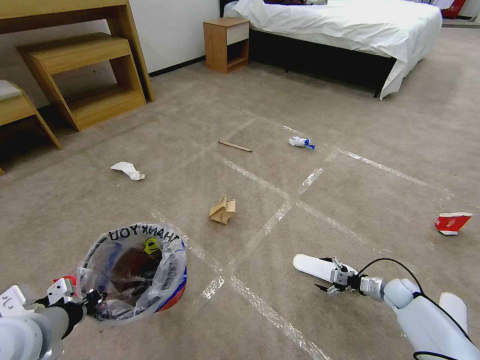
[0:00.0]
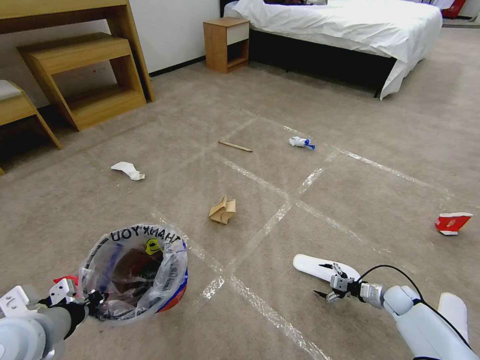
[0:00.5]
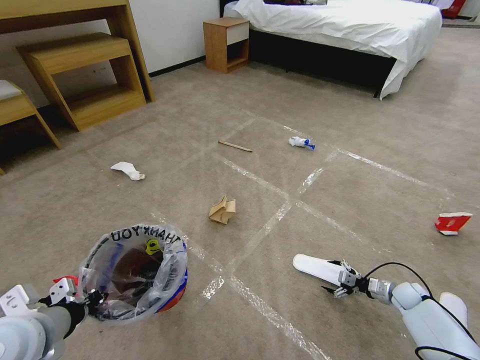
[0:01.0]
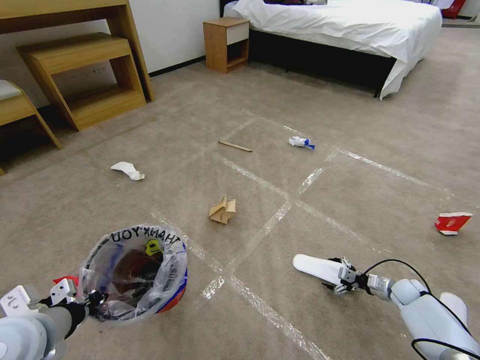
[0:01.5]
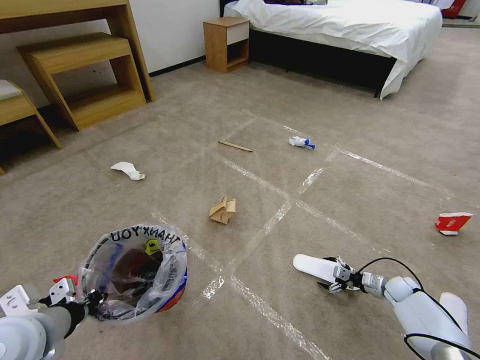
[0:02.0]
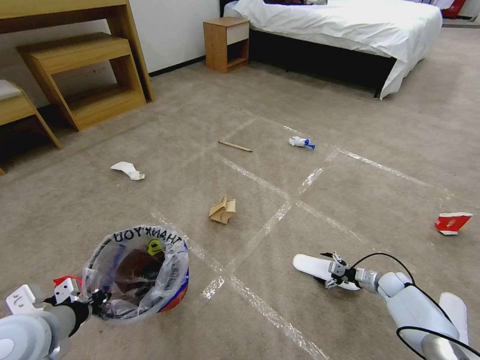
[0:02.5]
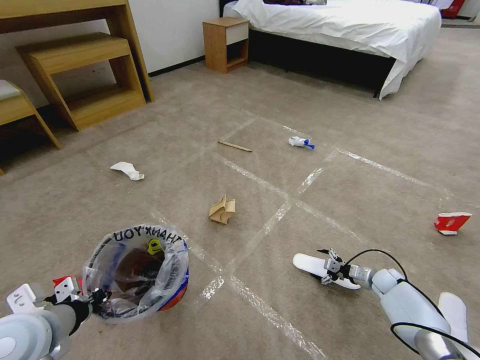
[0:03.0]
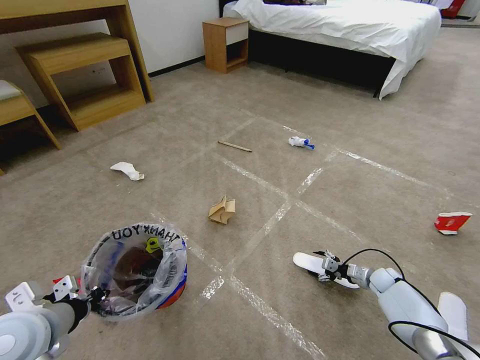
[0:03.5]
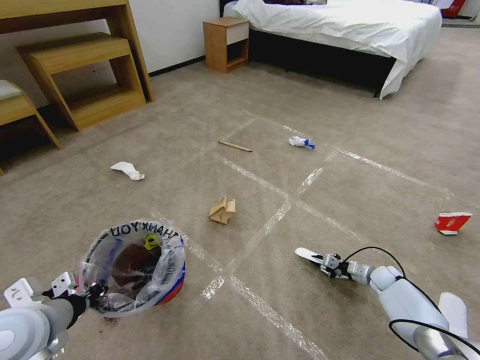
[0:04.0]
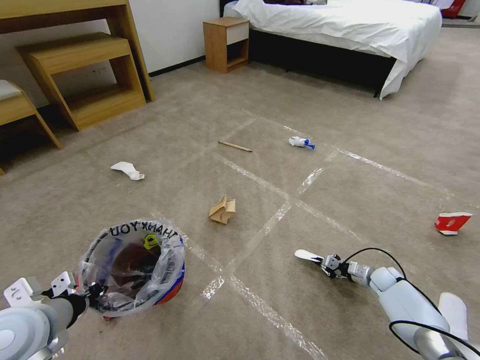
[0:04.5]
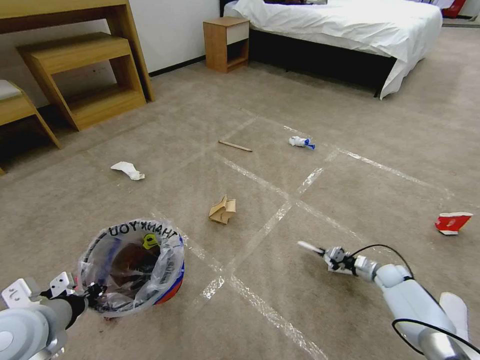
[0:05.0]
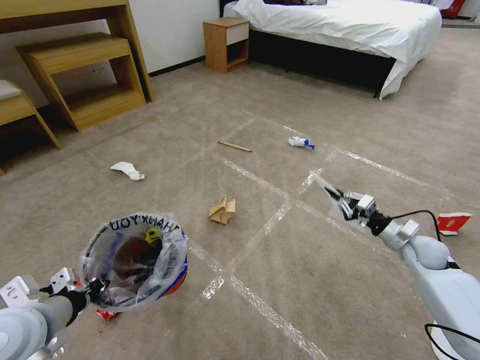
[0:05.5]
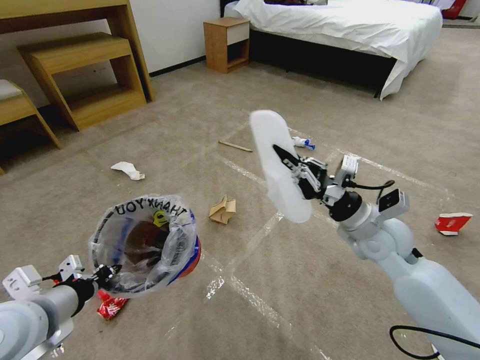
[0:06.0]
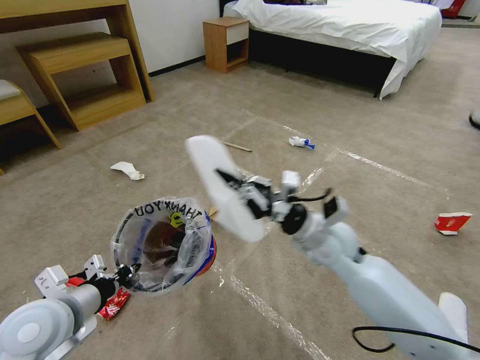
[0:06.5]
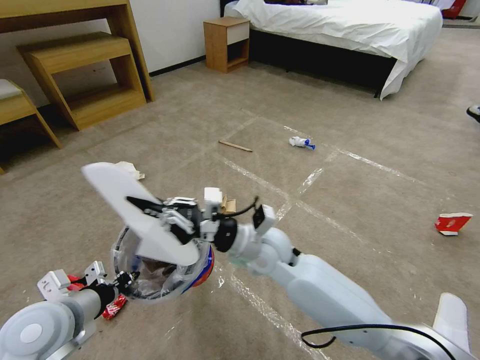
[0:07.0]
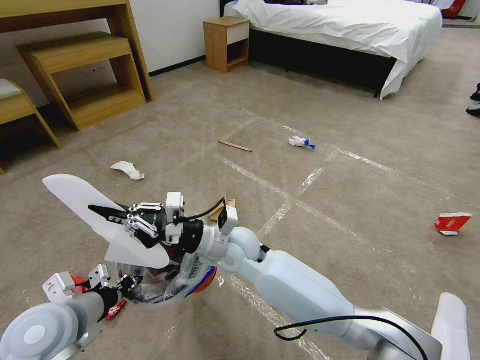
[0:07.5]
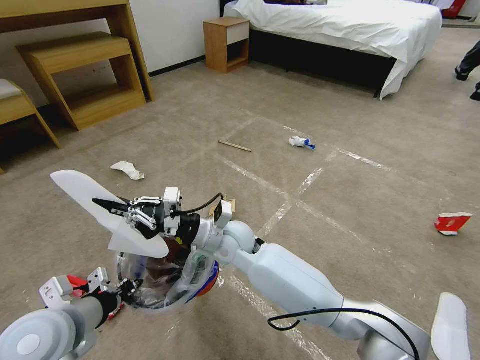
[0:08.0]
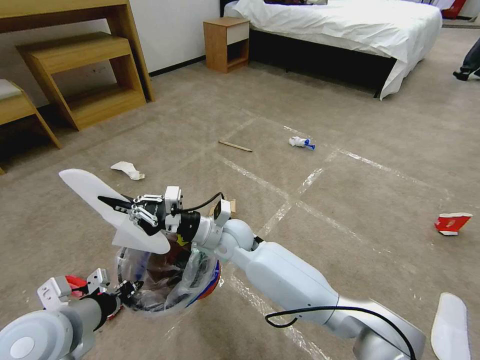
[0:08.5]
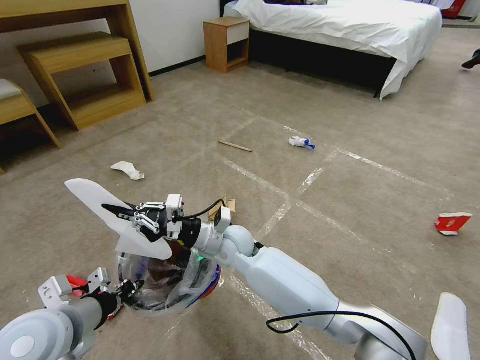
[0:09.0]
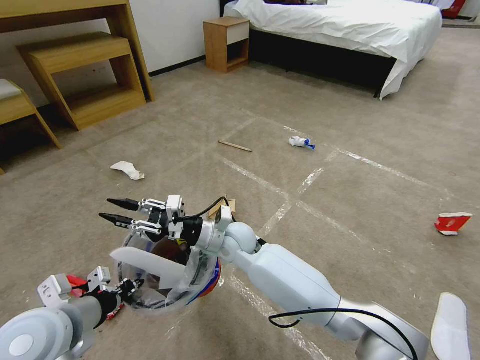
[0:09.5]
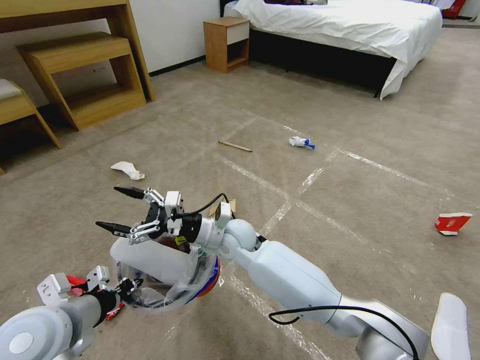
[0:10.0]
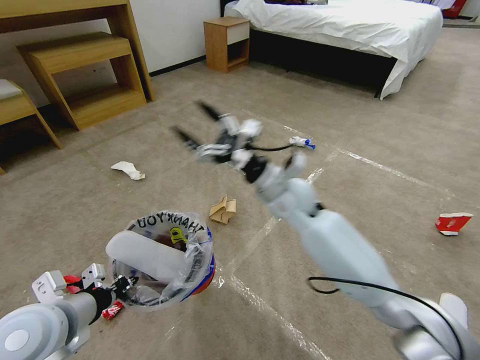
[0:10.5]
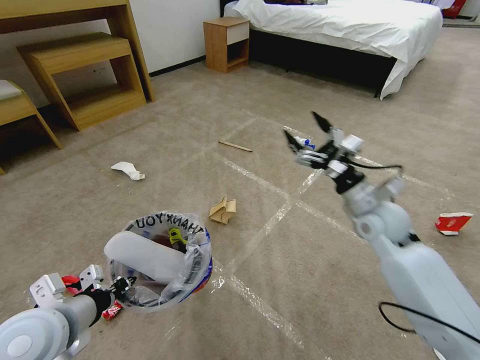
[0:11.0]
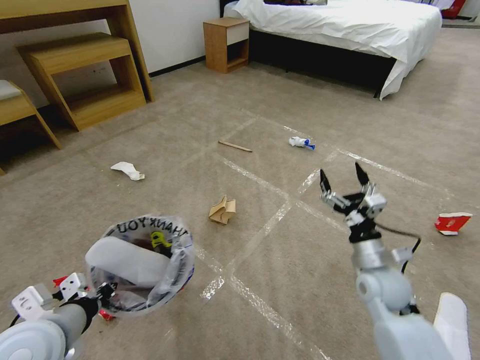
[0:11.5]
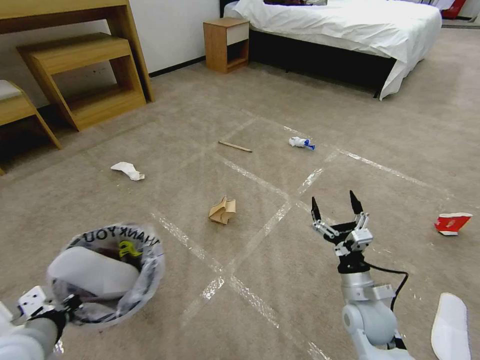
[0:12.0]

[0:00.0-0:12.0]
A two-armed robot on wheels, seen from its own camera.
Task of the whole recording: Pick up the trash bin and place the garbage on the floor into it.
0:00.0 to 0:02.0: The grippers stay close to where they were, moving slightly.
0:02.0 to 0:04.0: The right gripper closes.
0:04.0 to 0:06.0: The right gripper is displaced upward and to the left by roughly 35 cm.
0:06.0 to 0:08.0: The right gripper heads to the left, covering about 30 cm.
0:08.0 to 0:10.0: The right gripper opens up.
0:10.0 to 0:12.0: The right gripper shifts approximately 35 cm to the right and backward.

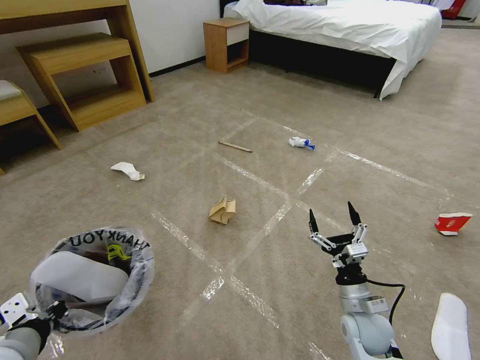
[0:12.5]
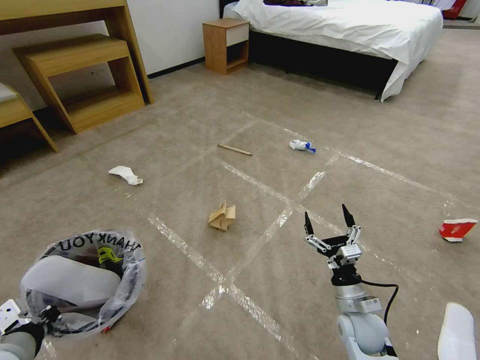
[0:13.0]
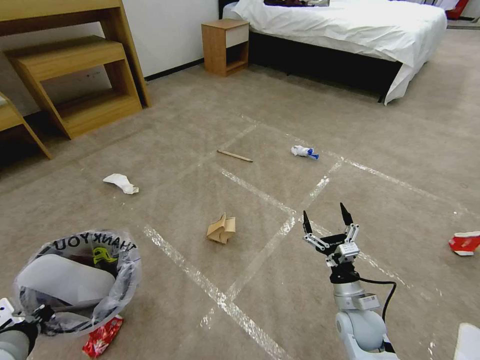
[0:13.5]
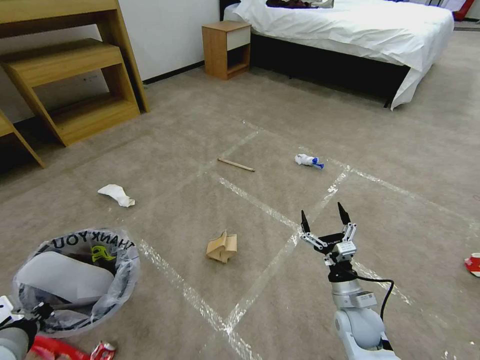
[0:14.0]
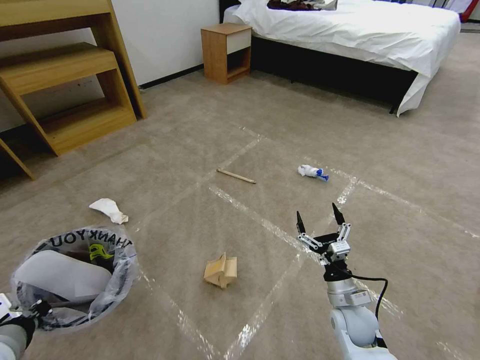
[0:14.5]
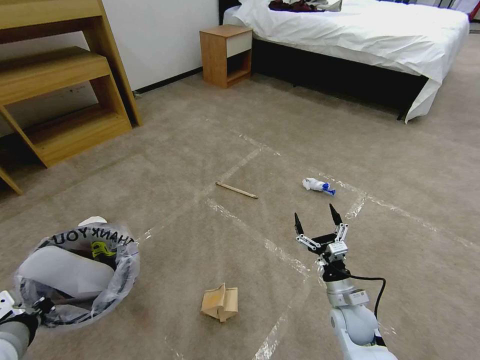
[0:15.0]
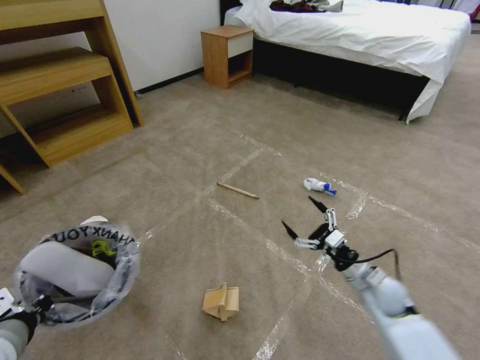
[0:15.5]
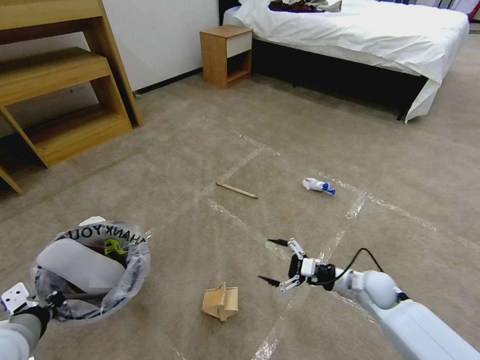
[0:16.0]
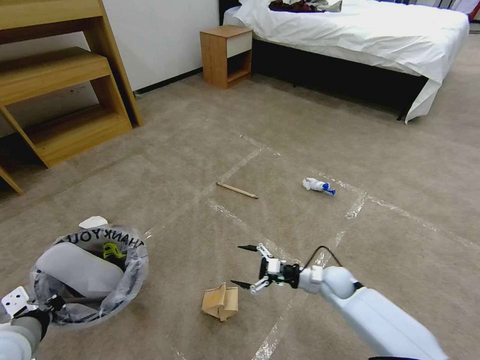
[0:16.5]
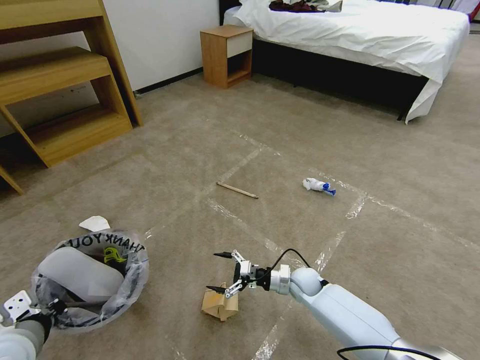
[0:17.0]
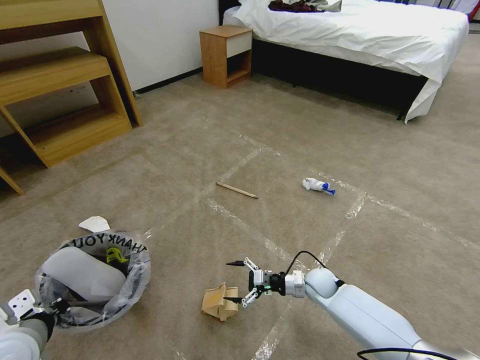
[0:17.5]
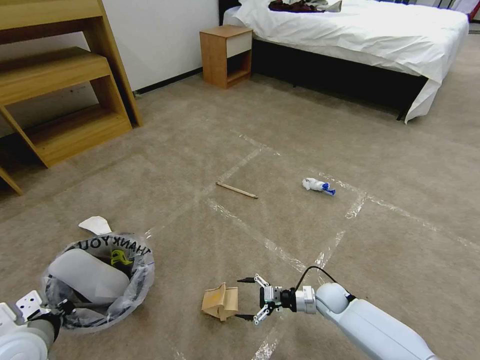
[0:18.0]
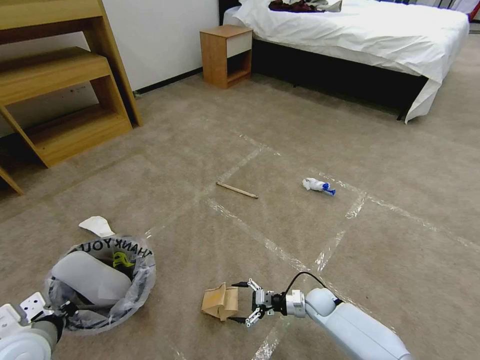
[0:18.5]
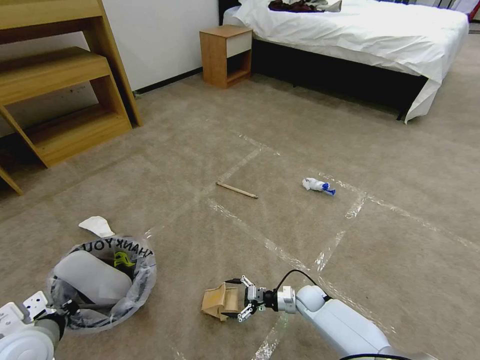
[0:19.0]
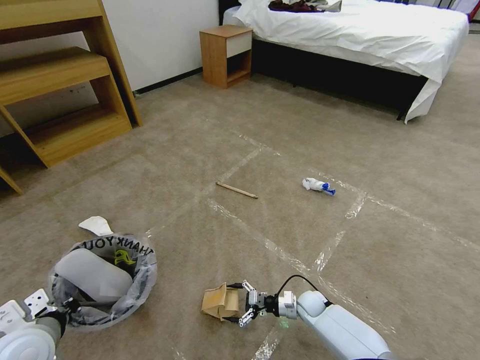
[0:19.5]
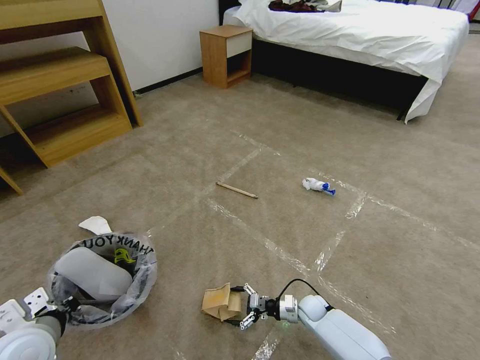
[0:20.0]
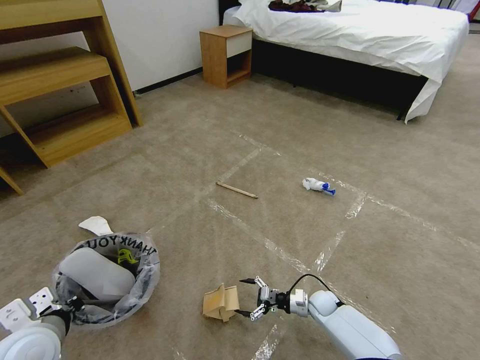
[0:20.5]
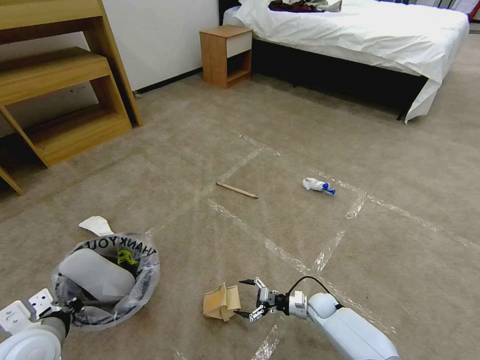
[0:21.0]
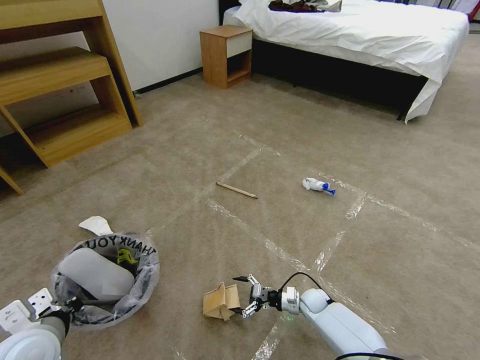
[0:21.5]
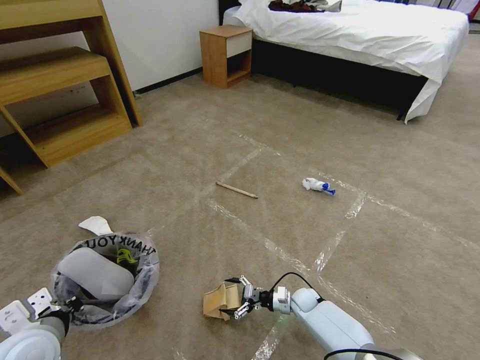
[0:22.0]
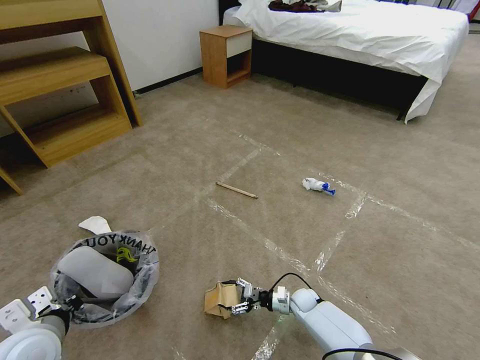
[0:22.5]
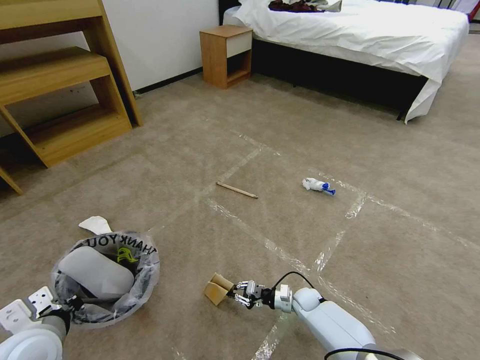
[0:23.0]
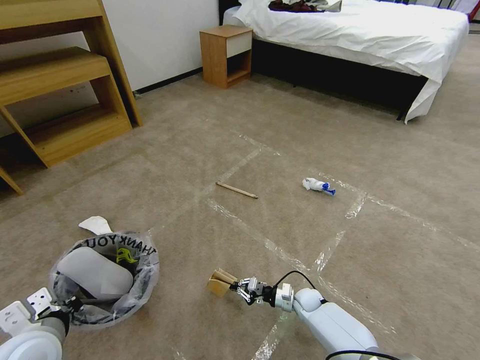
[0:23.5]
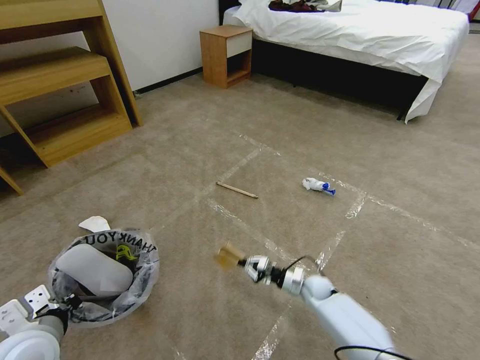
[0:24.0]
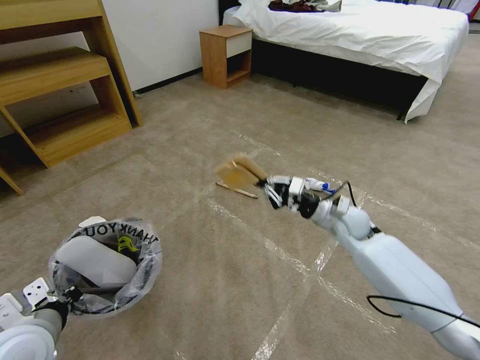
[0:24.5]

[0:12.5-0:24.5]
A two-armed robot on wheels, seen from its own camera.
Task of the whole recording: Pick up the trash bin and place the garbage on the floor into it.
0:14.5 to 0:16.5: The right gripper moves forward, some 10 cm.
0:16.5 to 0:18.5: The right gripper travels downward by approximately 10 cm.
0:18.5 to 0:20.5: The grippers make only small movements.
0:20.5 to 0:22.5: The right gripper shifts some 5 cm to the left.
0:22.5 to 0:24.5: The right gripper shifts some 30 cm upward, and closes up.

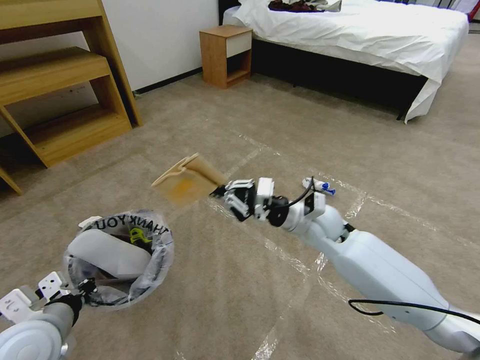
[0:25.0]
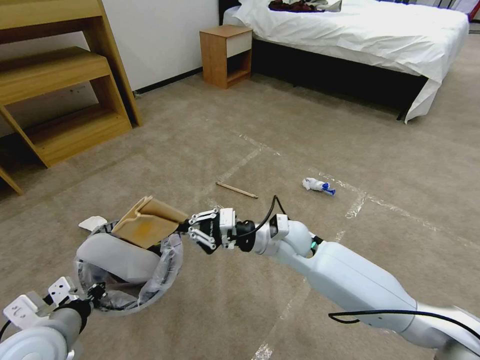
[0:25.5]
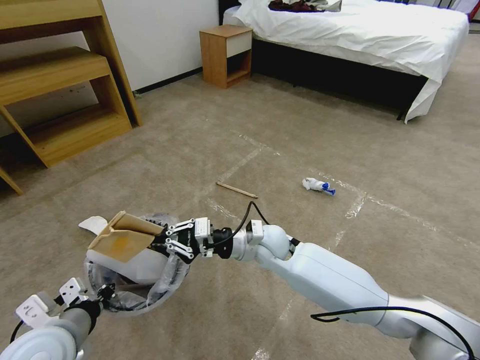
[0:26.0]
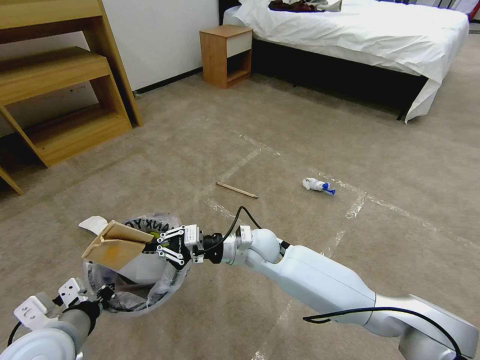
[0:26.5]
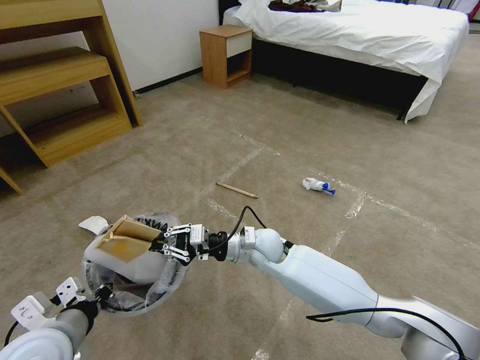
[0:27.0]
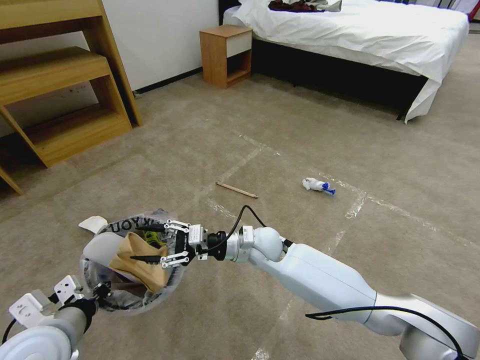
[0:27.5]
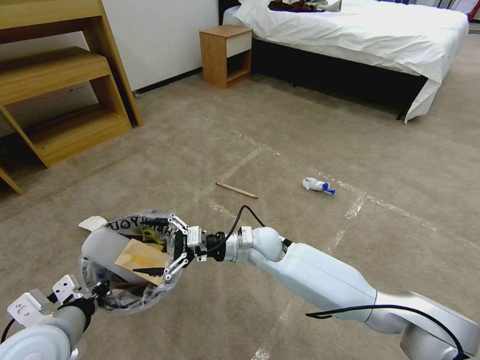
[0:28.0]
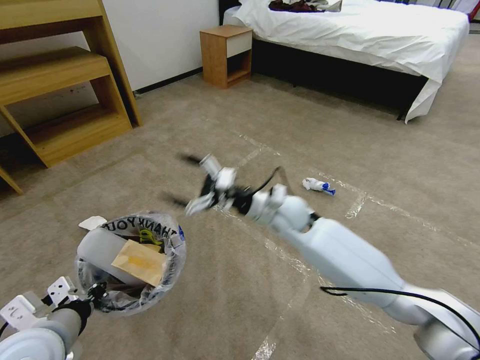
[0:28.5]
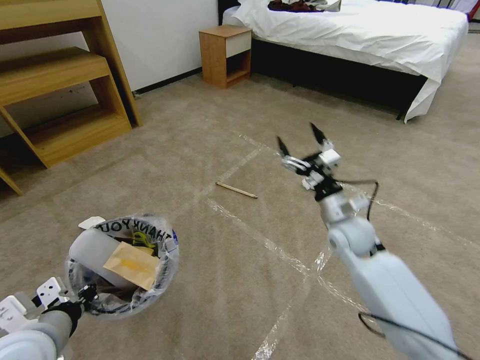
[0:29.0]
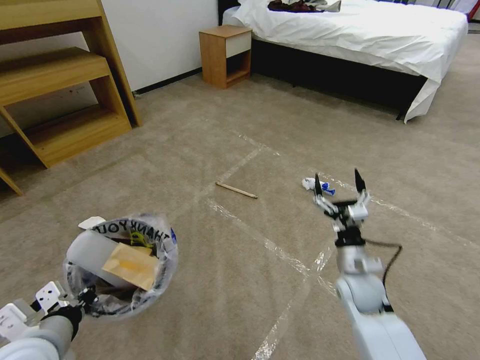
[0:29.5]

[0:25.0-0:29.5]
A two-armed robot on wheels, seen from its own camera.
Task of the whole recording: Pick up the trash bin and place the garbage on the floor into it.
0:25.0 to 0:27.0: The right gripper goes approximately 15 cm to the left and downward.
0:27.0 to 0:29.5: The right gripper goes approximately 20 cm to the right, and opens up.
